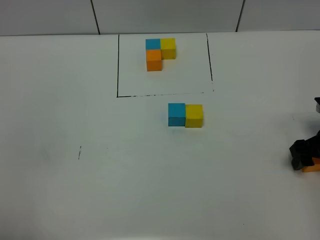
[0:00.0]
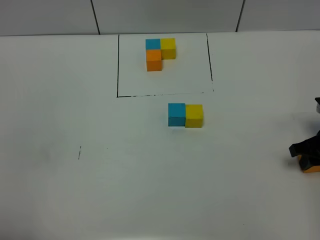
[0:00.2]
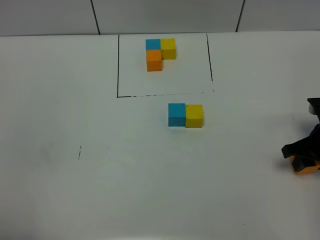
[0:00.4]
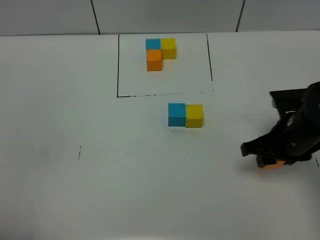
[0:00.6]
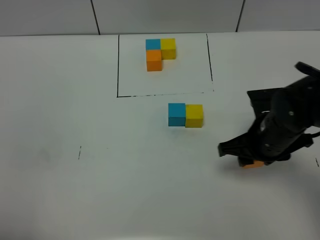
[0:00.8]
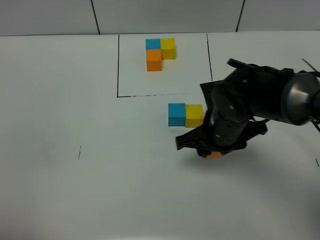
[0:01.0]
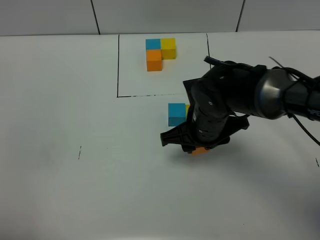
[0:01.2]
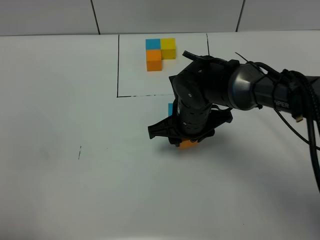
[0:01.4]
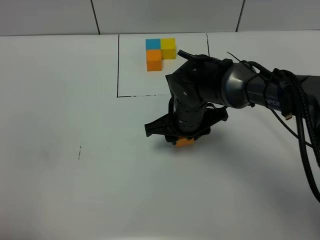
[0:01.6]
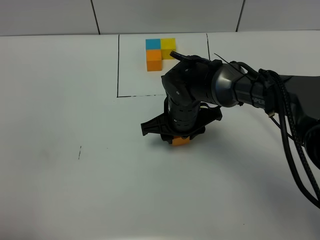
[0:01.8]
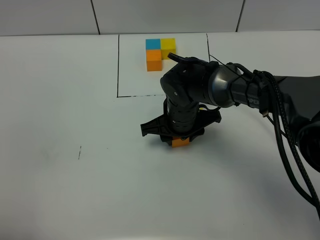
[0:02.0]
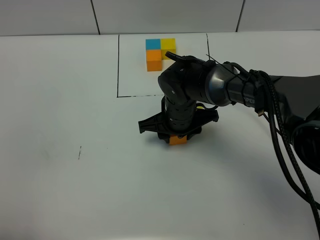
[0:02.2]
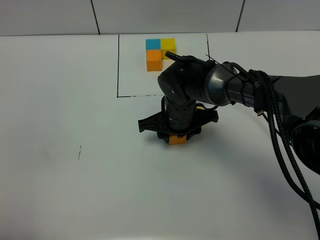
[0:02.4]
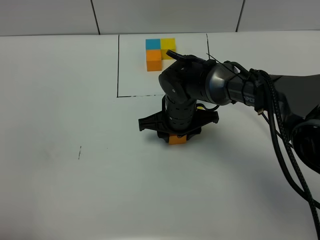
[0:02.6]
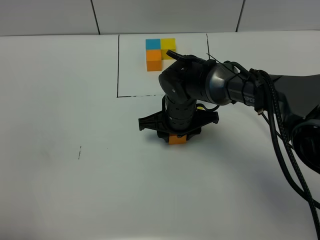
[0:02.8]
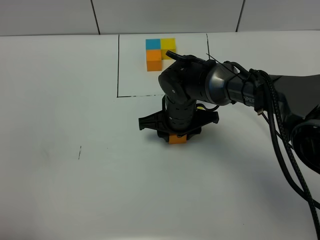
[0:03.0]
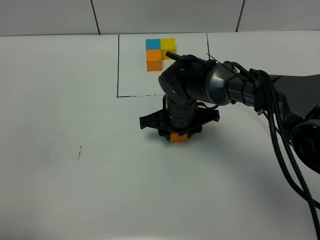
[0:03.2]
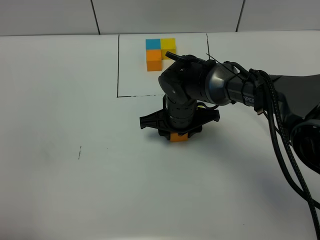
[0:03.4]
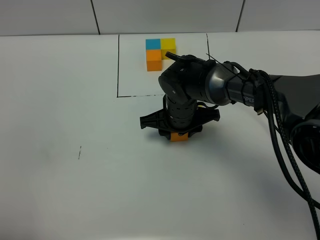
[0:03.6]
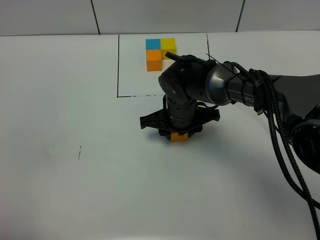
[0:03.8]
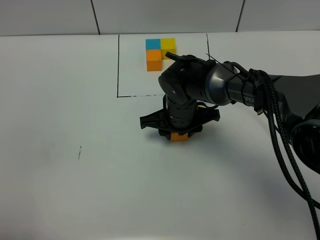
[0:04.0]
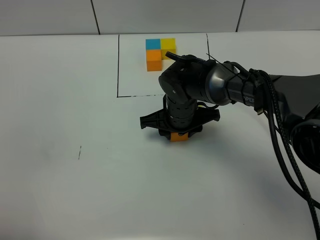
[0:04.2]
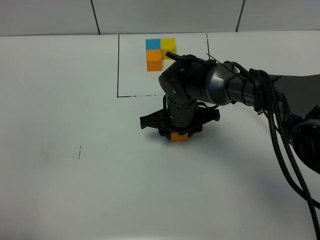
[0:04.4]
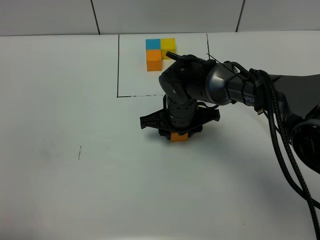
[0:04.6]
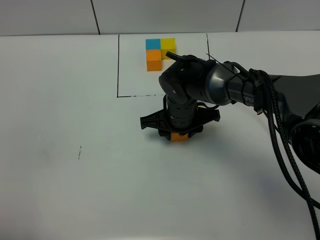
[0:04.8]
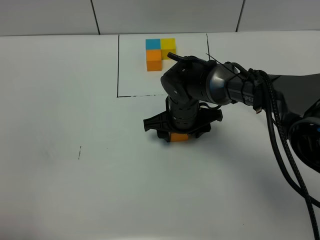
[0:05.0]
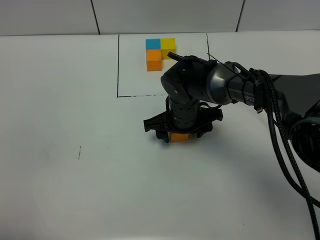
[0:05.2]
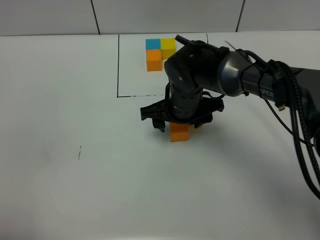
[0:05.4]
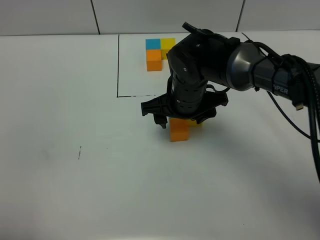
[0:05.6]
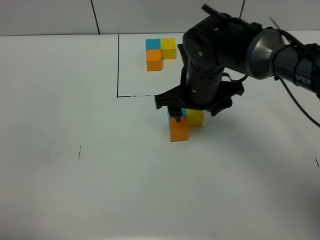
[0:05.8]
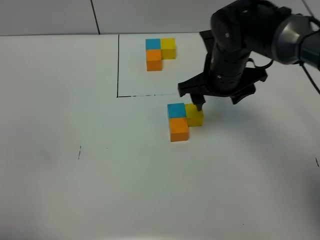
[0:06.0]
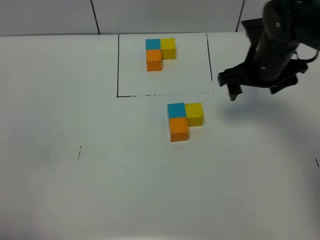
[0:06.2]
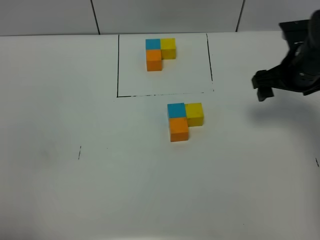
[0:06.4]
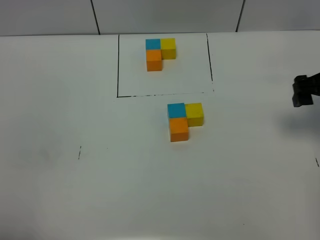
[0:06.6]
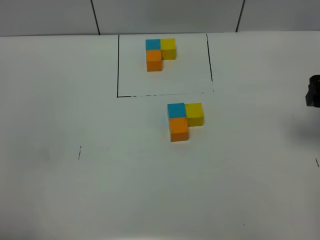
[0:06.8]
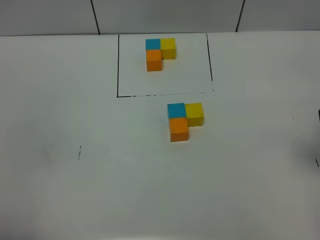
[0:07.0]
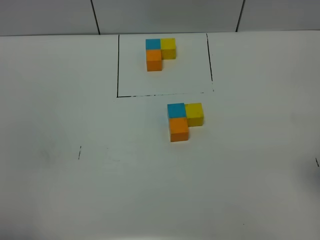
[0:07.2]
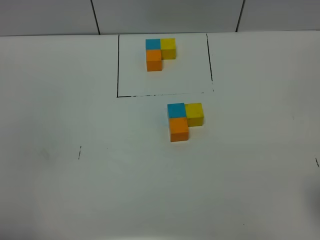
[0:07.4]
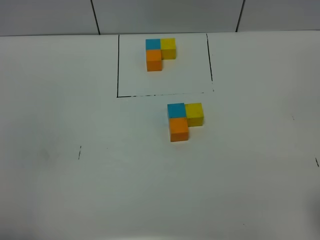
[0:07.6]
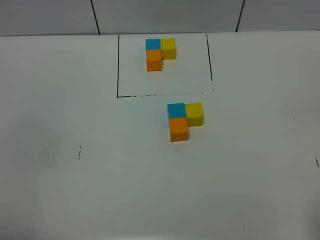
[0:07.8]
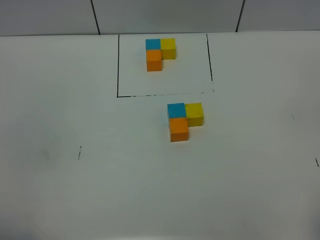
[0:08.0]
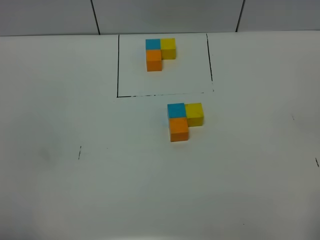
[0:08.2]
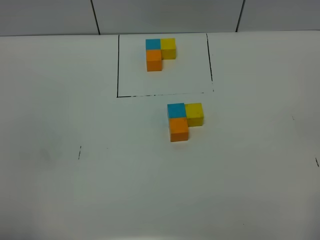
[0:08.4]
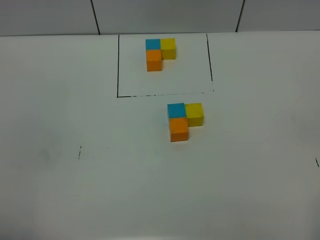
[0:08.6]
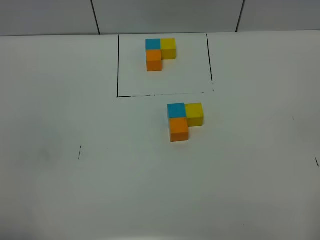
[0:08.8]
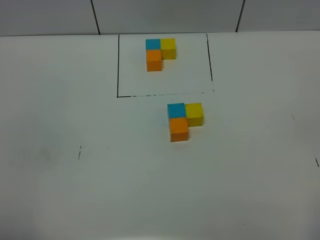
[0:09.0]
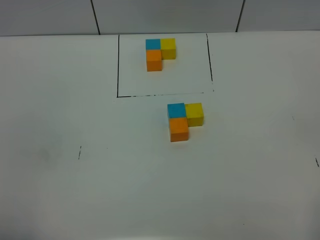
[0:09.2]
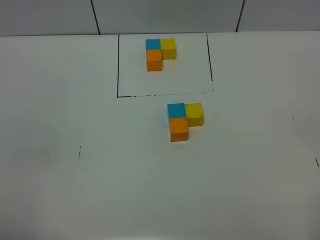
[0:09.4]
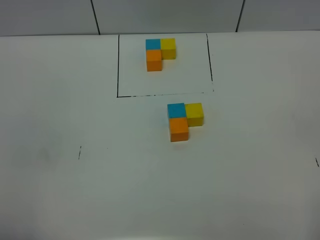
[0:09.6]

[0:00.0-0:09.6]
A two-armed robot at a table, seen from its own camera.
Task of the whole recording: According to the building block template in front, assemble the scattered blocks together.
Step, 0:00.0 to 0:05.2: Put the orange build block on the behind of the blue build block.
0:00.0 to 0:01.6: The right gripper goes roughly 30 cm to the left, and closes its fingers.
0:01.6 to 0:03.2: The grippers make only small movements.
0:03.2 to 0:04.8: Both grippers stay put.
0:04.8 to 0:06.4: The right gripper goes approximately 25 cm to the right and upward, and opens its fingers.
0:06.4 to 0:08.0: The right gripper heads backward, covering approximately 35 cm.

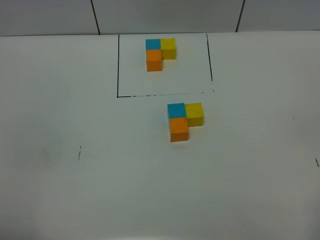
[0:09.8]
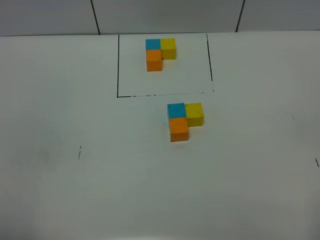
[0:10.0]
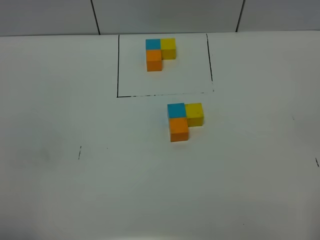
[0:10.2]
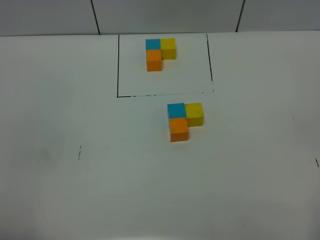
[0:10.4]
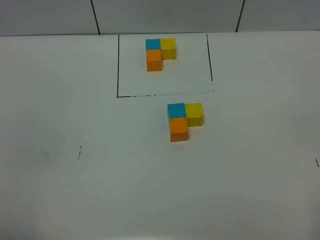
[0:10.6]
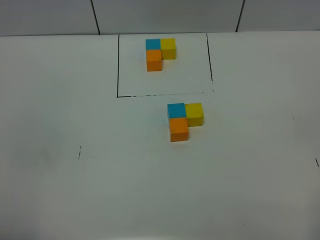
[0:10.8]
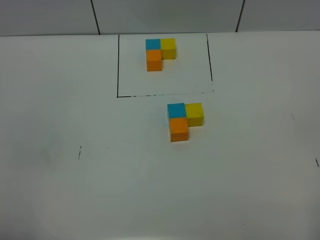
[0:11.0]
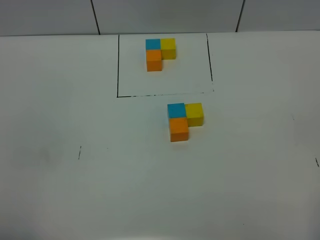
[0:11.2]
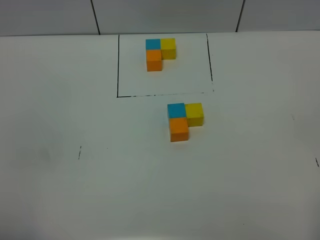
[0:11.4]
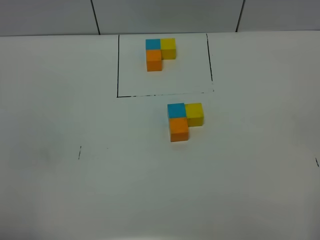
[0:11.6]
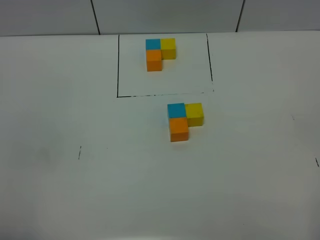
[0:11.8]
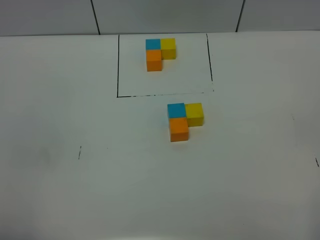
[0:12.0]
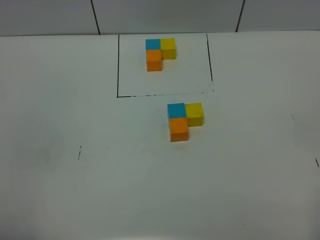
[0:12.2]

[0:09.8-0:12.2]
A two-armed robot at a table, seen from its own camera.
Task of the whole recording: According to the building block template in front, assemble the scattered blocks together.
0:09.8 to 0:12.2: The two grippers keep their place.

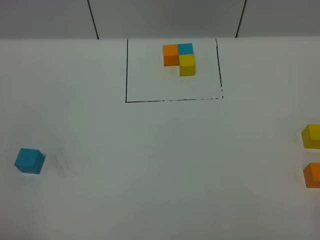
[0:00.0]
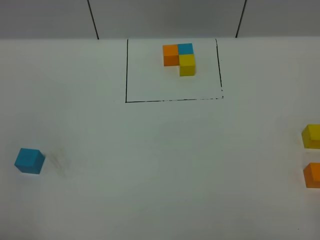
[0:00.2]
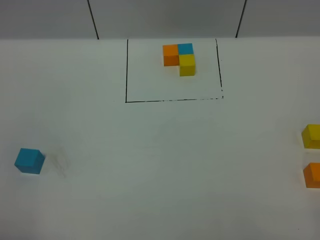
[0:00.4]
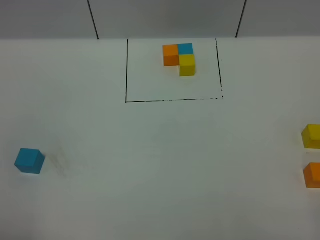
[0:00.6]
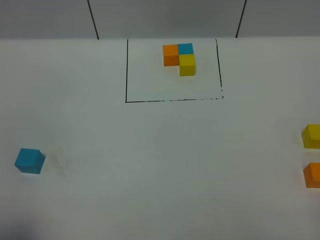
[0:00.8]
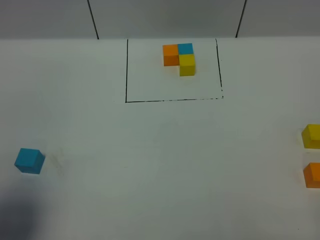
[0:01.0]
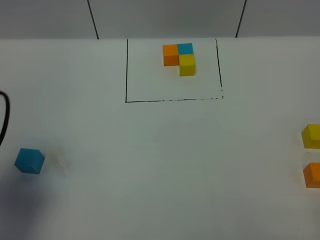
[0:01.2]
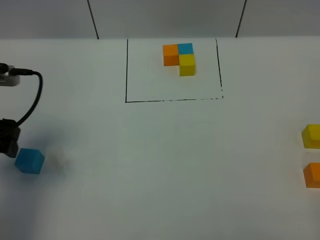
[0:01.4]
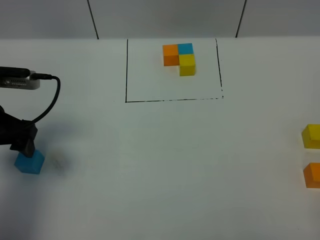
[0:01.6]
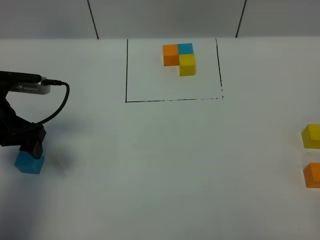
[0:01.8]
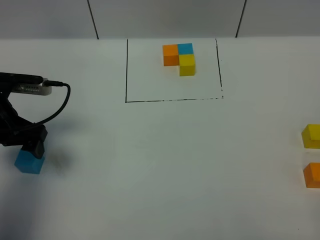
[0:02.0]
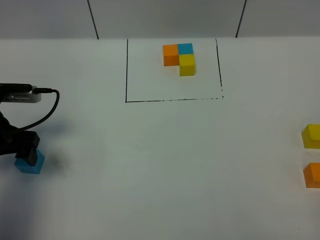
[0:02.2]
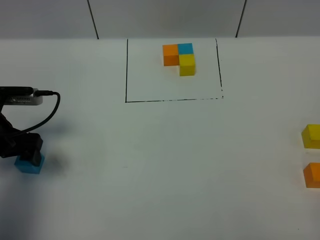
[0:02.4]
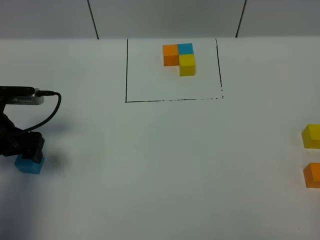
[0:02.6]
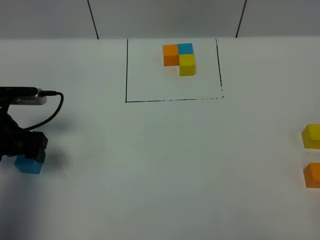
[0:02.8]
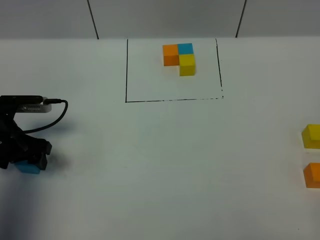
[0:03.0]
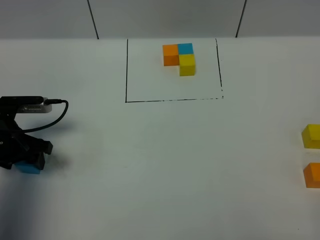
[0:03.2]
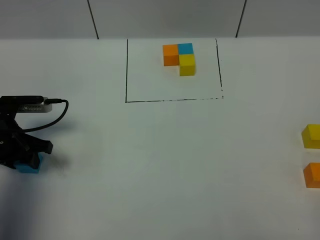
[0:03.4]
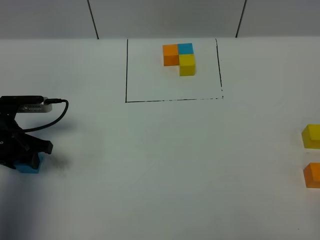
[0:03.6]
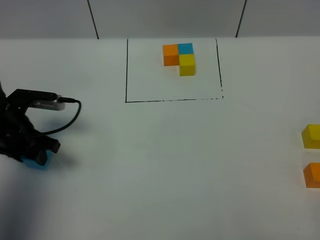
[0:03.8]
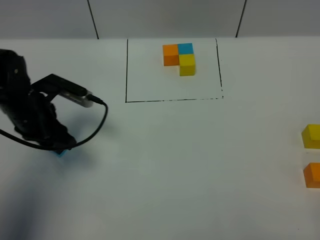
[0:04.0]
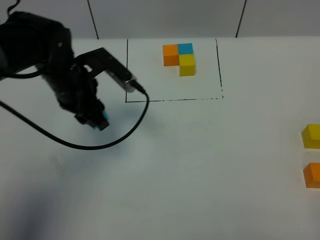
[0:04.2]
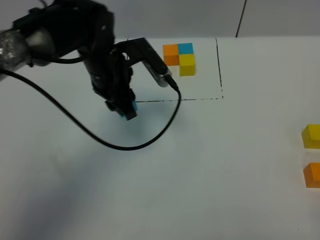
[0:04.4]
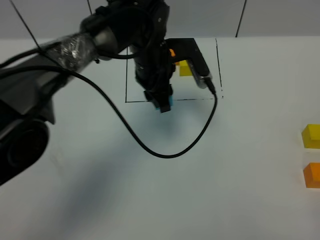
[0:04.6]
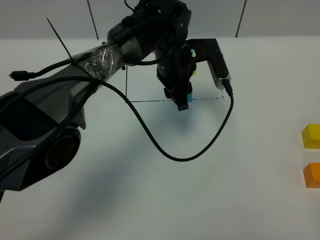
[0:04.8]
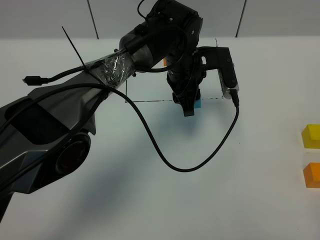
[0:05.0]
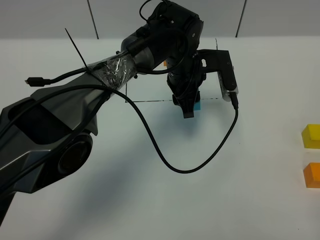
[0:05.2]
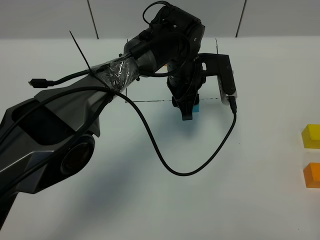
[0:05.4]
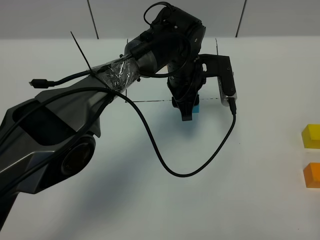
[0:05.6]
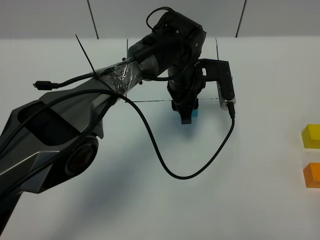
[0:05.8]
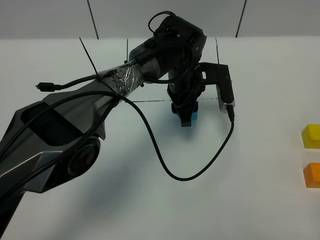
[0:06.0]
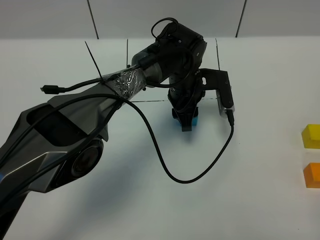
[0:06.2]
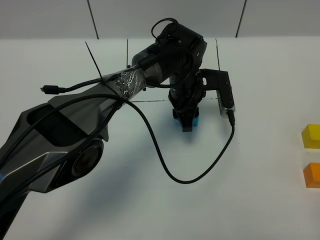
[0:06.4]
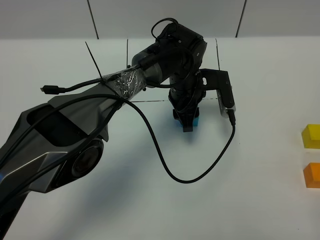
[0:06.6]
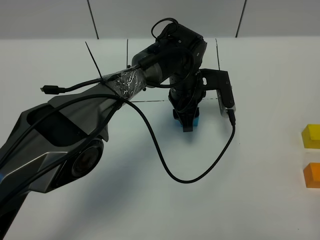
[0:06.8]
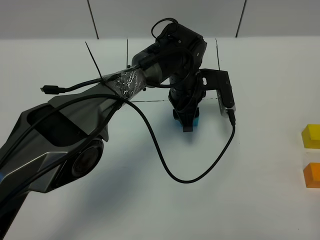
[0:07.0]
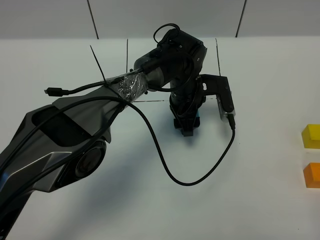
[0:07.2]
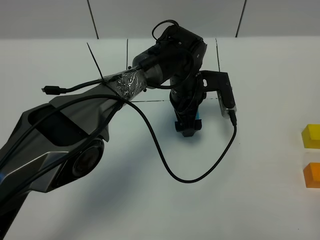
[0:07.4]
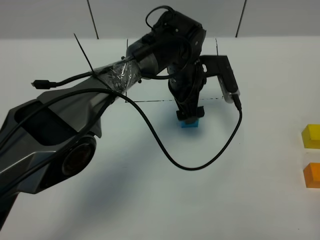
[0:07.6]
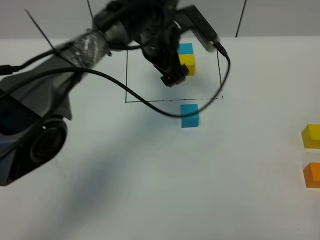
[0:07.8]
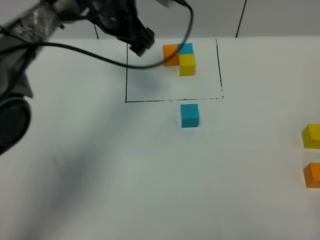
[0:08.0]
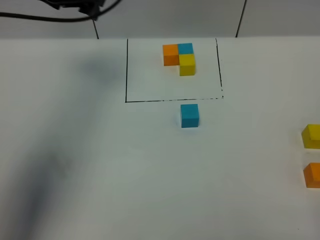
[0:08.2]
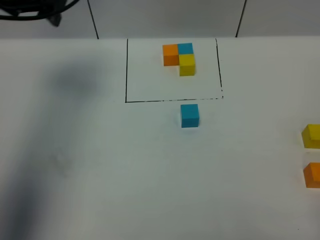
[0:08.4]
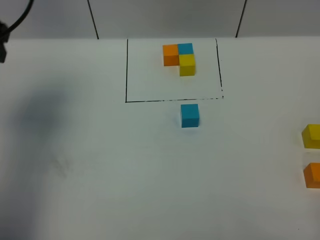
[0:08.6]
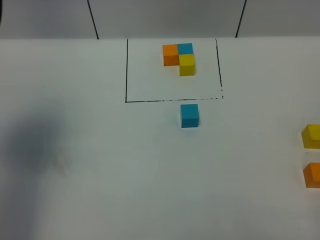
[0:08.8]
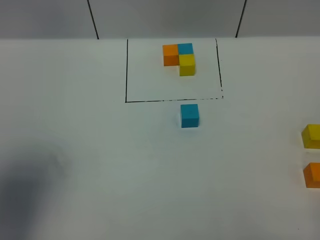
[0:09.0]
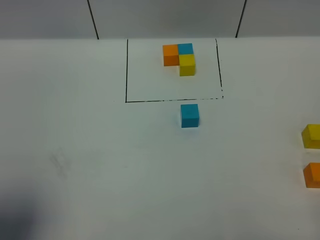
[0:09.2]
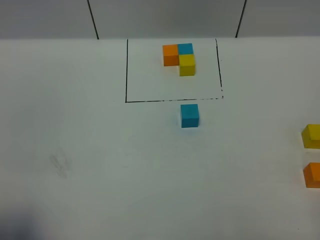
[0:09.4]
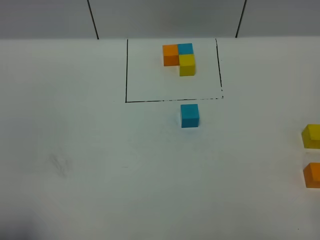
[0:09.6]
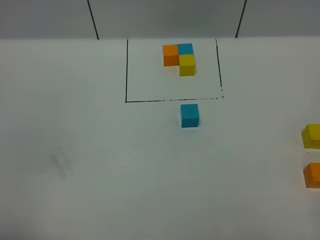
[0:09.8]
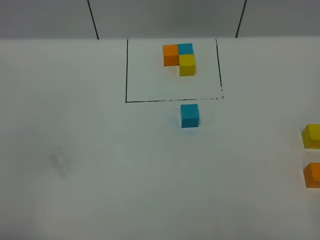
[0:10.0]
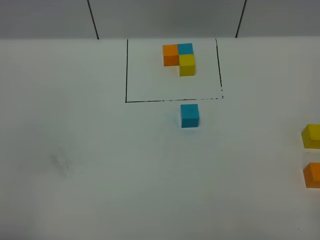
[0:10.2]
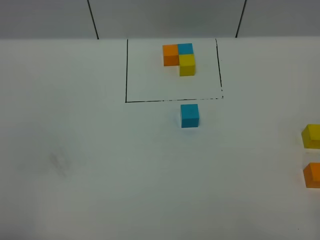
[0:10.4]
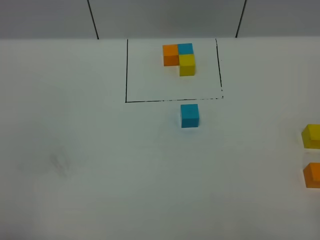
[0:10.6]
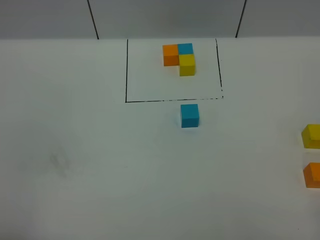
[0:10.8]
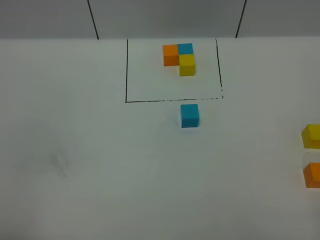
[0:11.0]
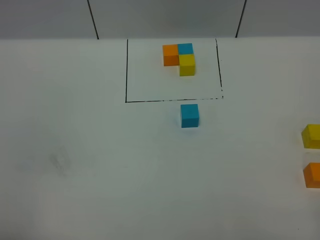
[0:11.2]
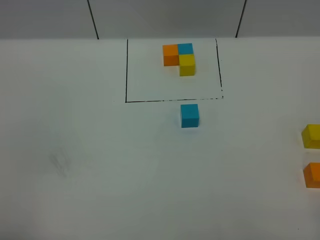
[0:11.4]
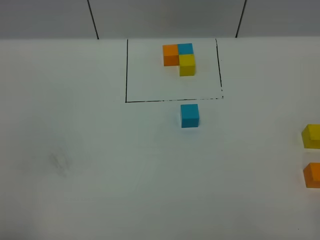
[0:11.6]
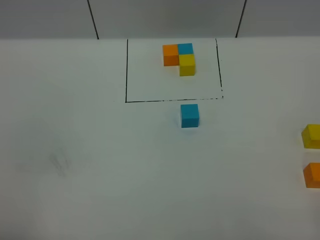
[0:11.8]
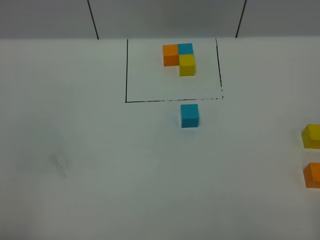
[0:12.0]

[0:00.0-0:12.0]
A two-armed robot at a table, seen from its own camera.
Task of the whole recording: According to the building block template in front, assemble the scattered blocks together.
Step, 0:00.0 to 0:07.0: Put the blue build block in the center of the table.
0:00.0 to 0:01.6: The left gripper is displaced forward by approximately 30 cm.
0:01.6 to 0:03.0: The left gripper moves downward, about 10 cm.
0:03.0 to 0:04.4: The left gripper goes about 20 cm to the right, and closes up.
0:04.4 to 0:06.0: The left gripper shifts roughly 15 cm to the right and downward.
0:06.0 to 0:07.6: The left gripper opens its fingers.
0:07.6 to 0:09.0: The left gripper travels to the left, backward and upward by some 50 cm.
0:09.0 to 0:10.4: The left gripper moves backward and downward, approximately 15 cm.
